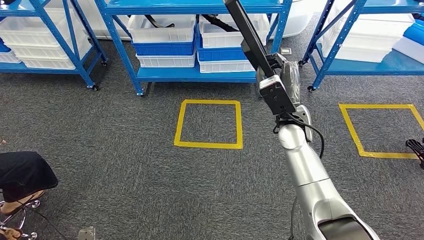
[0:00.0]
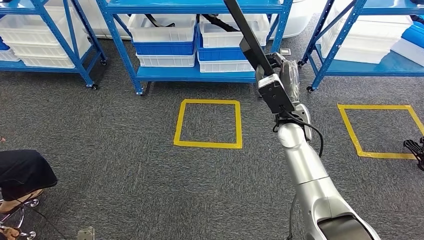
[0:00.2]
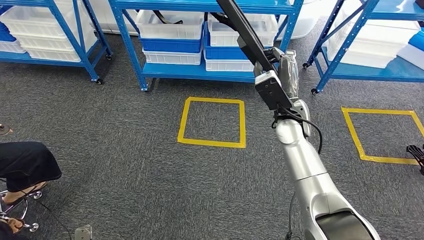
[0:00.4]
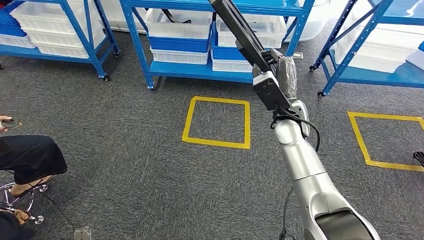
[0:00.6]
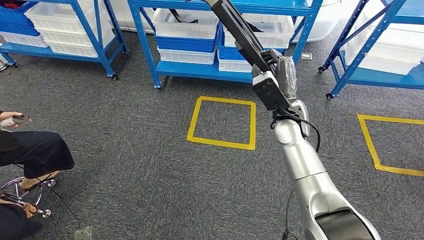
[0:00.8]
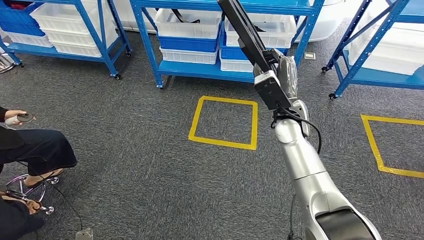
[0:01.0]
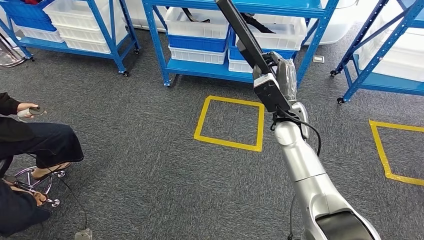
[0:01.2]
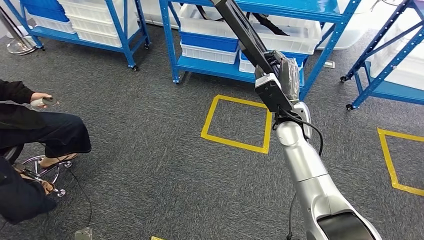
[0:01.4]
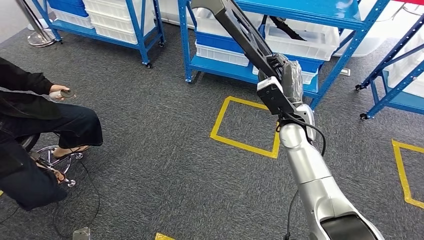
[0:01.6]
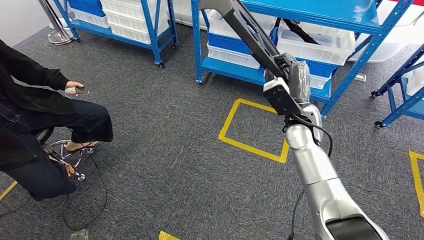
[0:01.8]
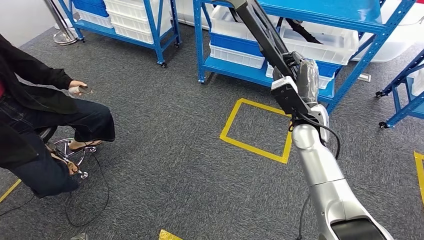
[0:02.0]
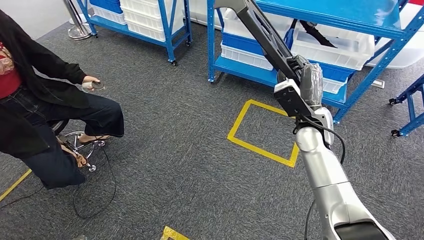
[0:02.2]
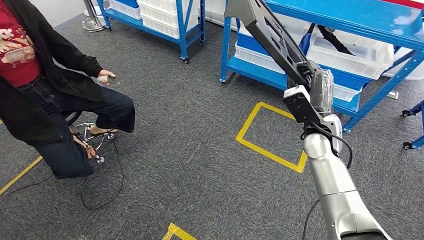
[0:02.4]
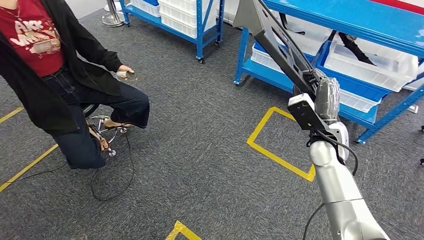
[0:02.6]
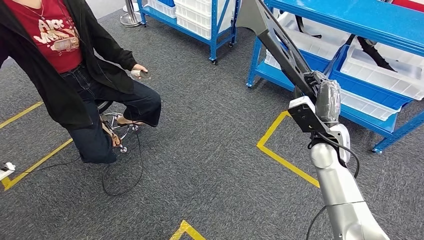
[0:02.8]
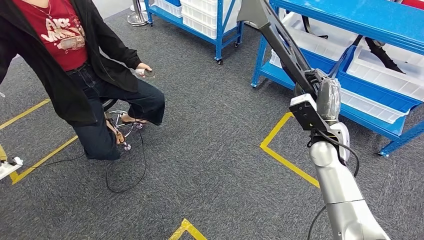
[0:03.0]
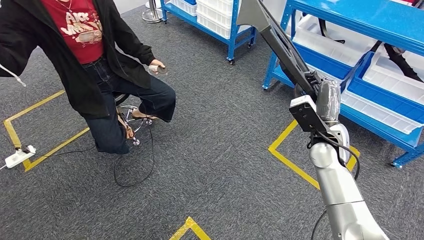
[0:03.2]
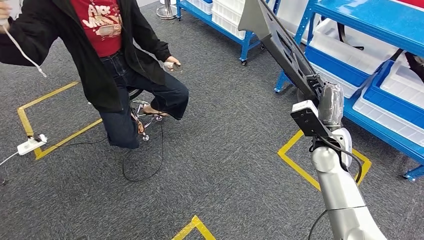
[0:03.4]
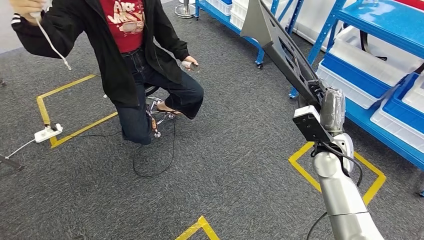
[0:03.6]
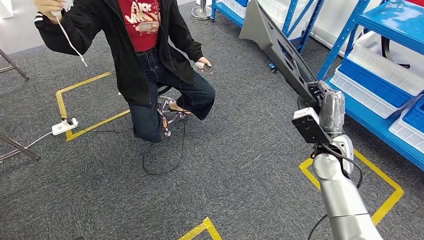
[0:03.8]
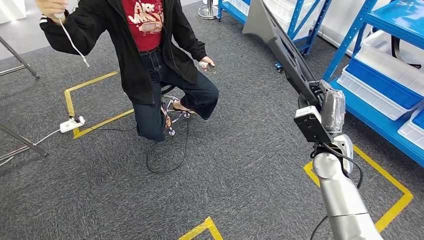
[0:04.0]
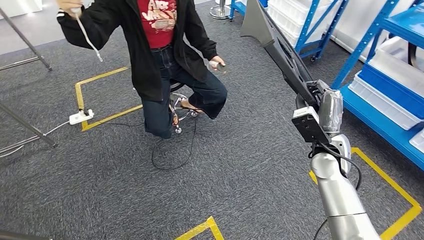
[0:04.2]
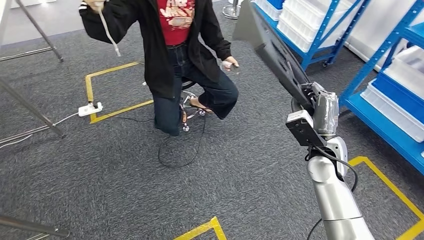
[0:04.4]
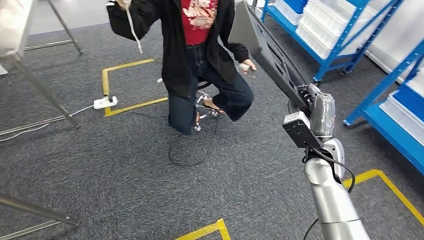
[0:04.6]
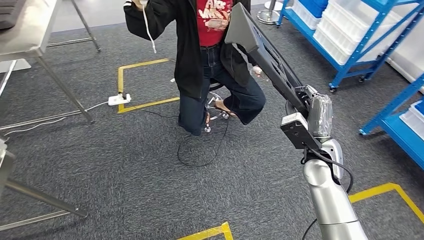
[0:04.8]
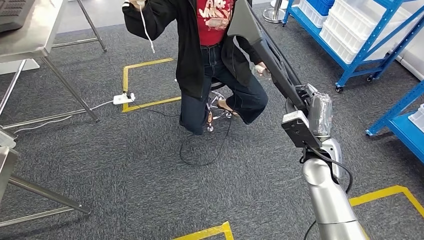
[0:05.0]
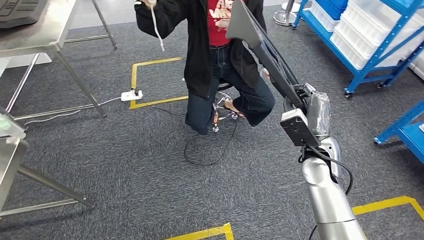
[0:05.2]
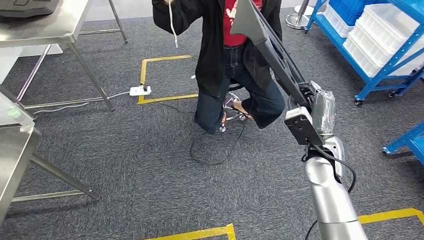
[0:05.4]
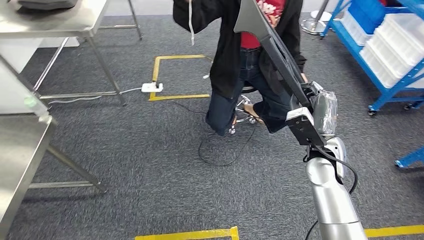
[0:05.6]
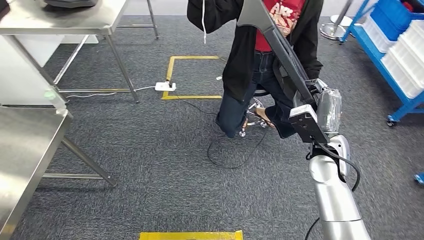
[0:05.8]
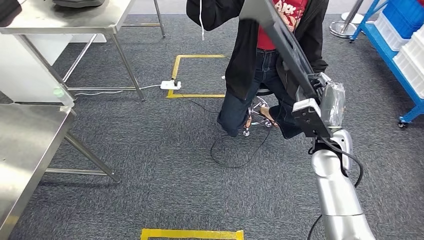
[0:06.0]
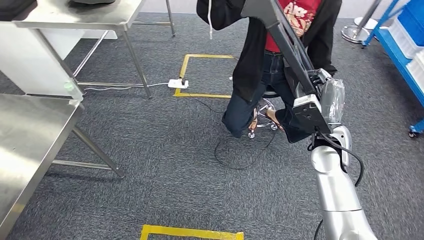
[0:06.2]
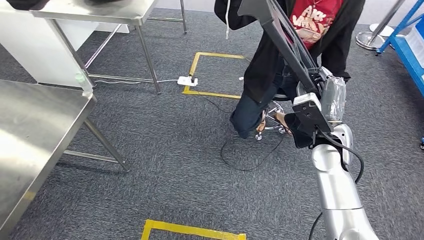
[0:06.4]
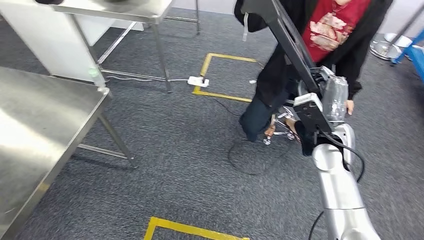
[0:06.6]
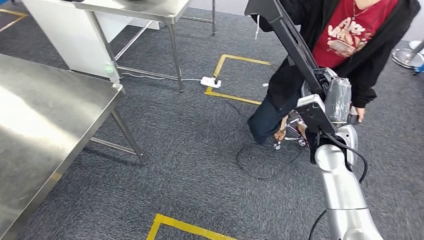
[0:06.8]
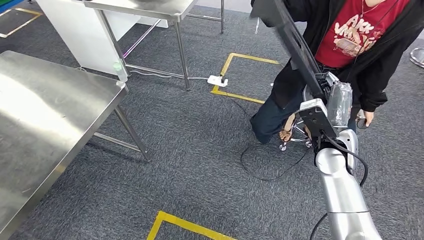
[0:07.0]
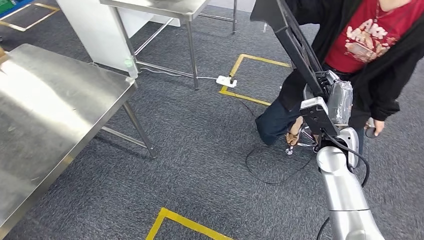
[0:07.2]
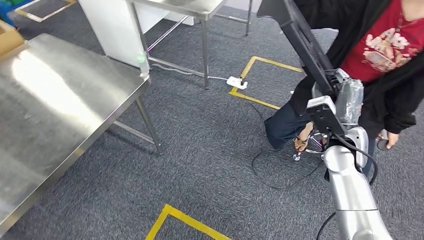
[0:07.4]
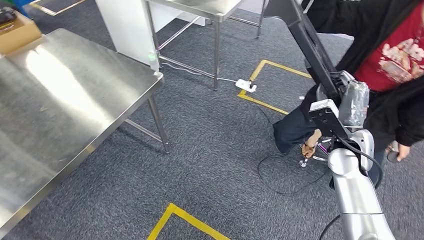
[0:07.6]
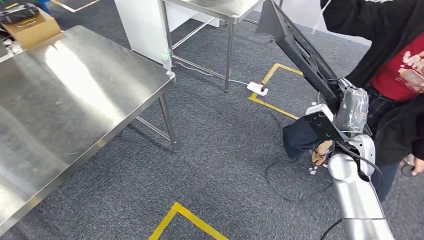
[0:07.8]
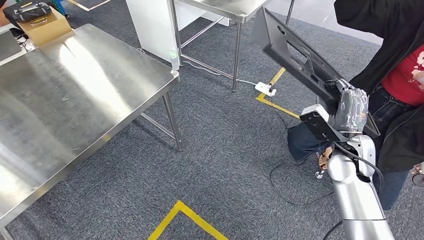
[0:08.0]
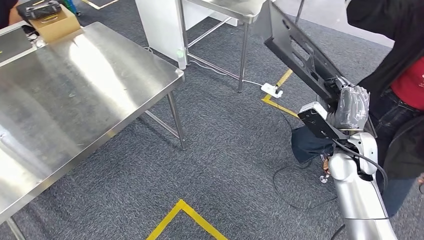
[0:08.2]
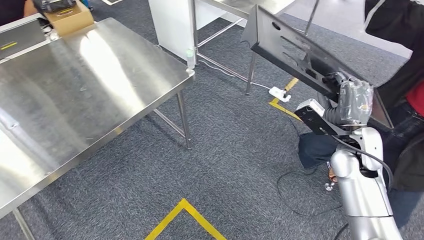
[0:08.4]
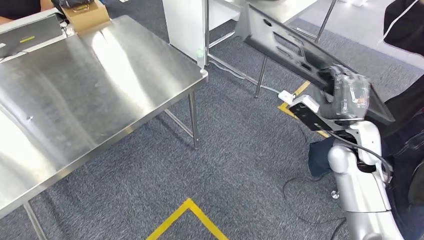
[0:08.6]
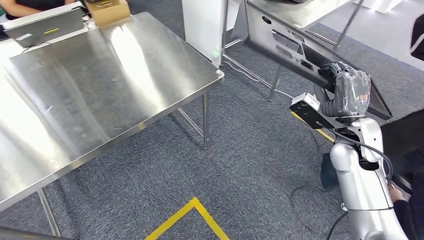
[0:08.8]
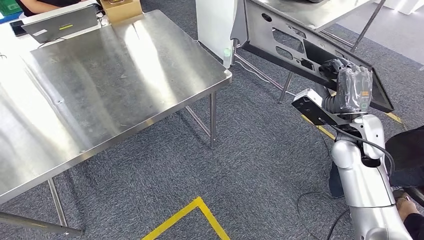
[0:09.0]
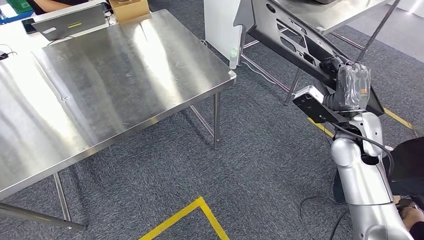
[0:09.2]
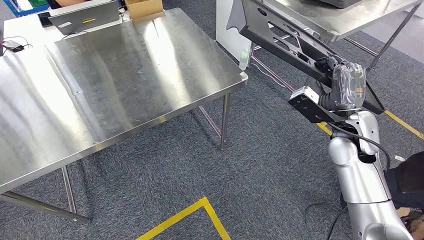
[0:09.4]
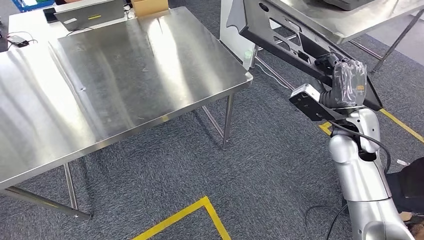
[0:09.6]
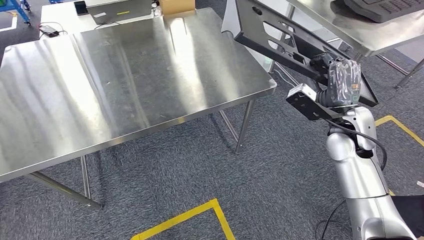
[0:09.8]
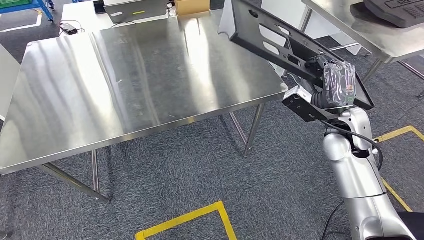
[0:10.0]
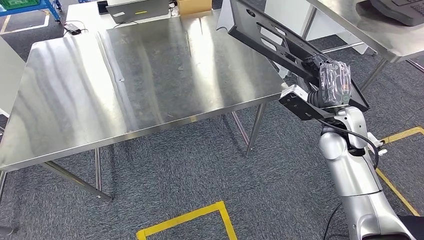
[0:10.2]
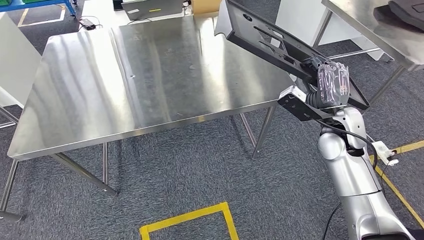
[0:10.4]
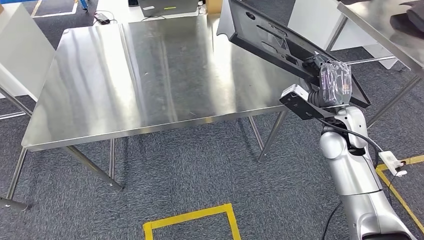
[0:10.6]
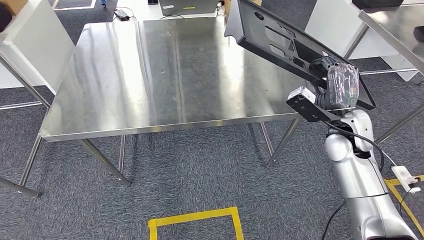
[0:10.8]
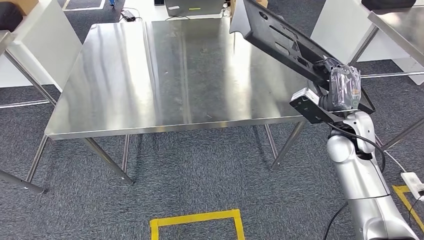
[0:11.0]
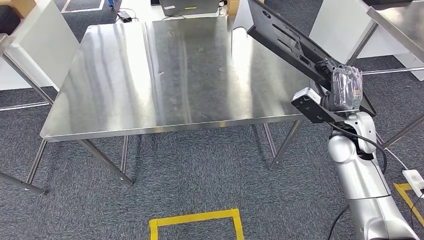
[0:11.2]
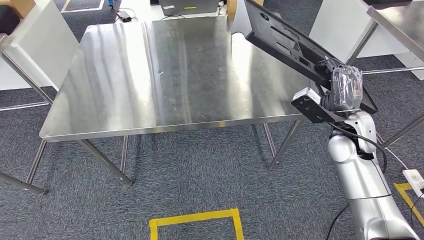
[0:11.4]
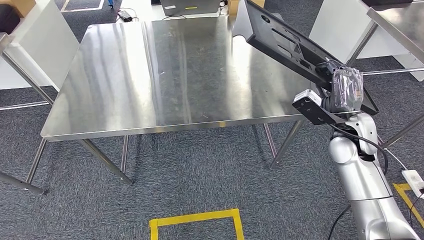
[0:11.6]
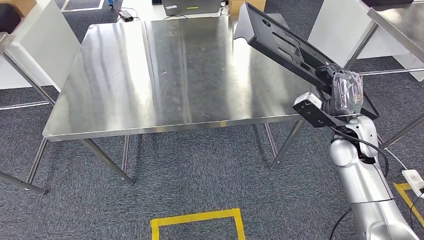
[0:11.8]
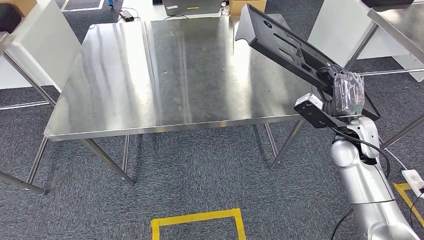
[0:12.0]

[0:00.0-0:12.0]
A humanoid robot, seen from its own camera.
Step, 0:00.0 to 0:10.8: Move the large material to the workbench.

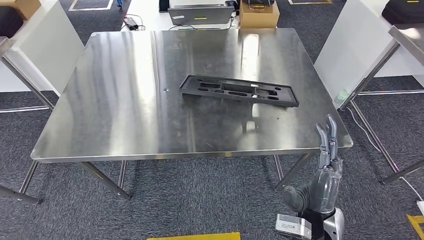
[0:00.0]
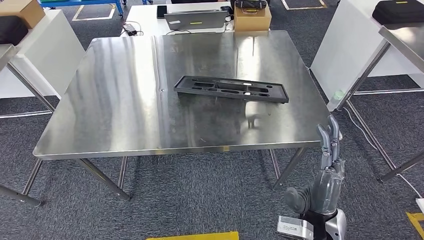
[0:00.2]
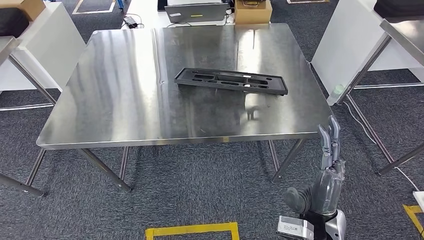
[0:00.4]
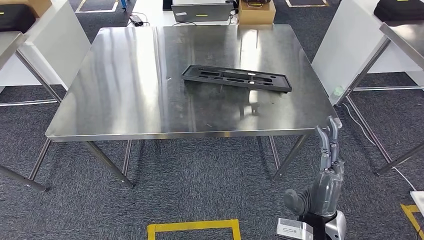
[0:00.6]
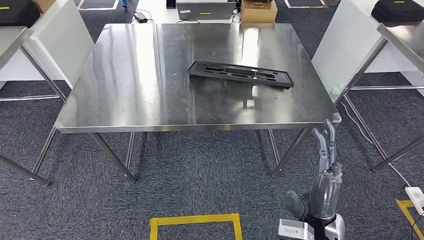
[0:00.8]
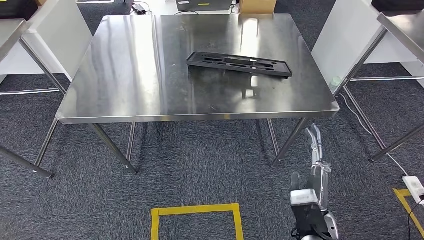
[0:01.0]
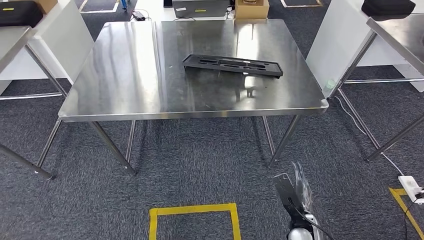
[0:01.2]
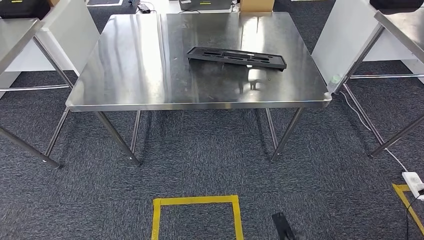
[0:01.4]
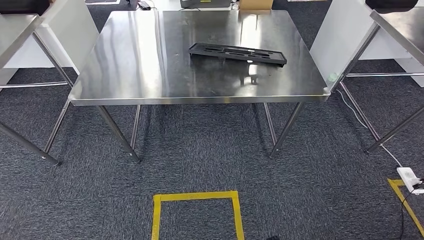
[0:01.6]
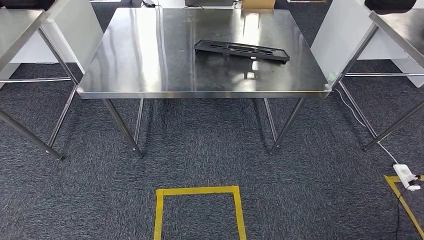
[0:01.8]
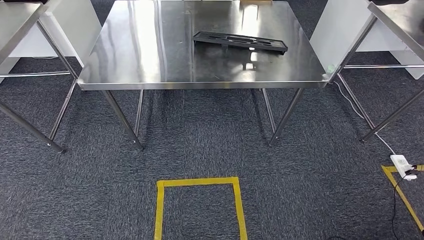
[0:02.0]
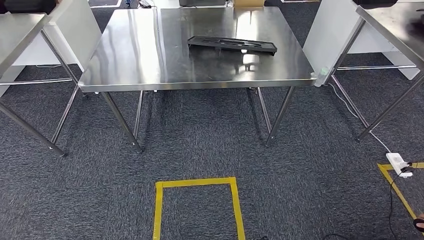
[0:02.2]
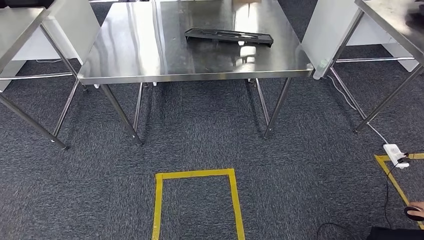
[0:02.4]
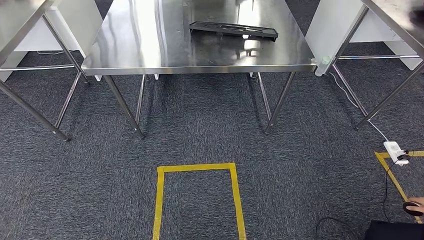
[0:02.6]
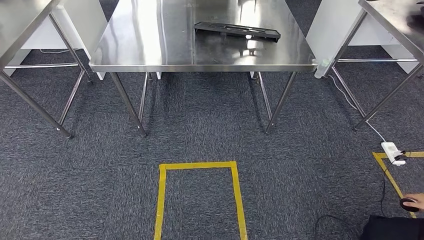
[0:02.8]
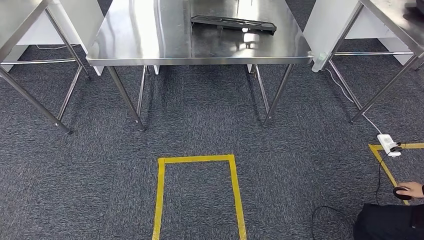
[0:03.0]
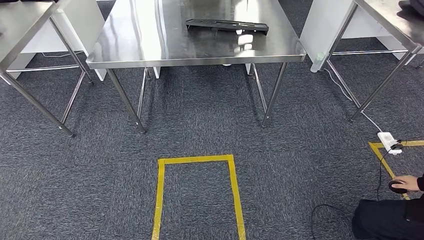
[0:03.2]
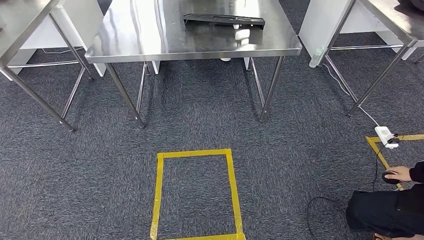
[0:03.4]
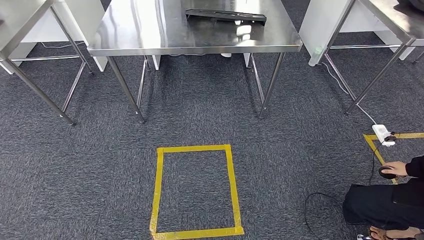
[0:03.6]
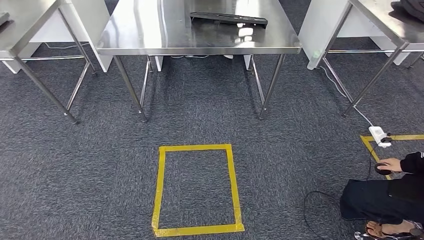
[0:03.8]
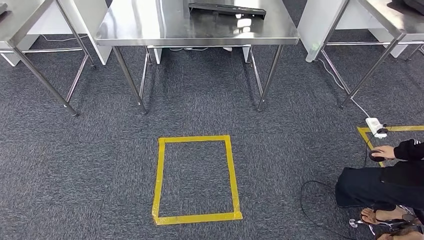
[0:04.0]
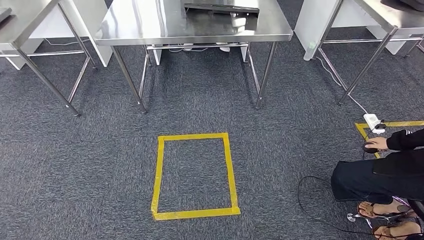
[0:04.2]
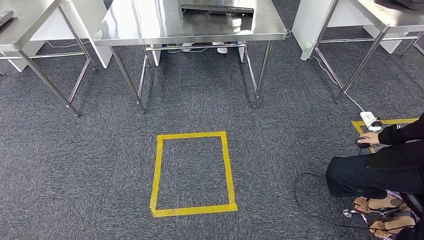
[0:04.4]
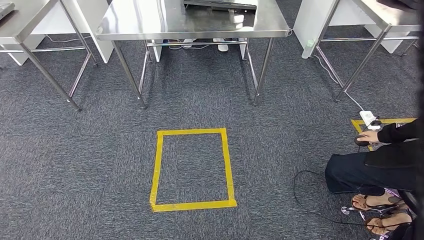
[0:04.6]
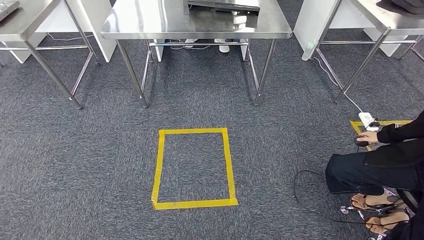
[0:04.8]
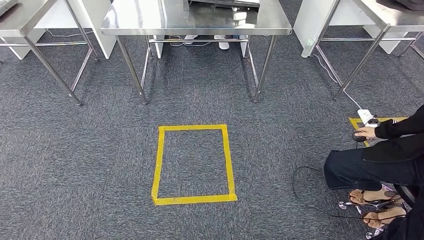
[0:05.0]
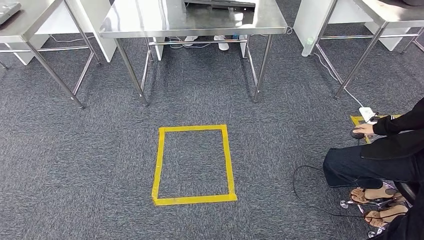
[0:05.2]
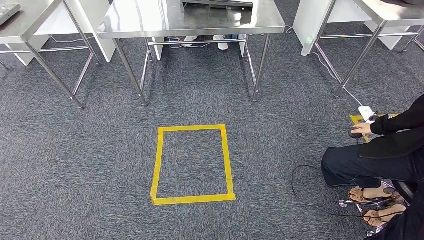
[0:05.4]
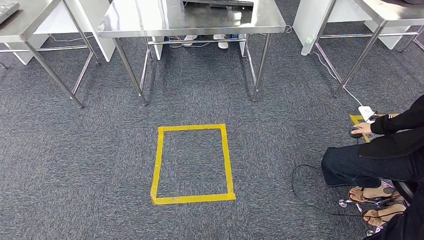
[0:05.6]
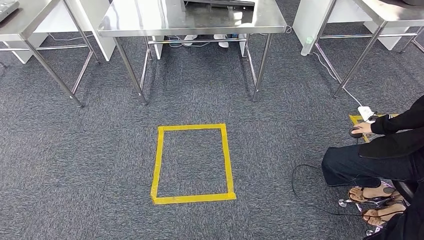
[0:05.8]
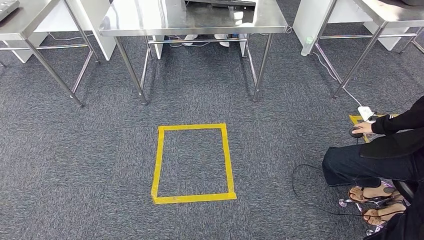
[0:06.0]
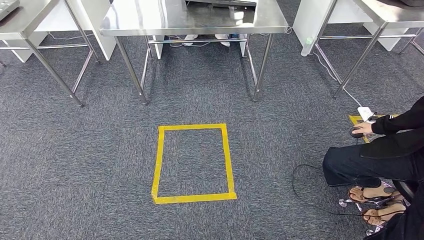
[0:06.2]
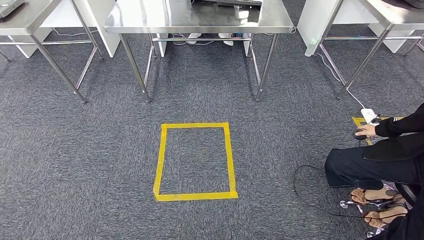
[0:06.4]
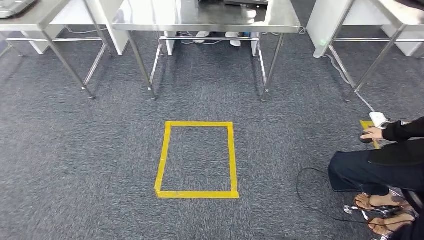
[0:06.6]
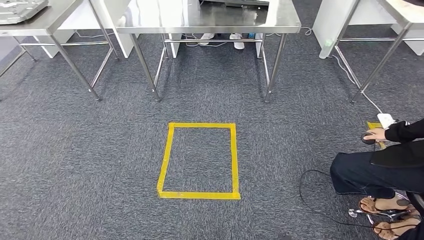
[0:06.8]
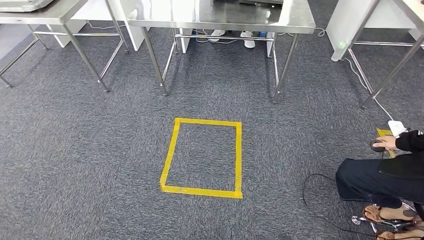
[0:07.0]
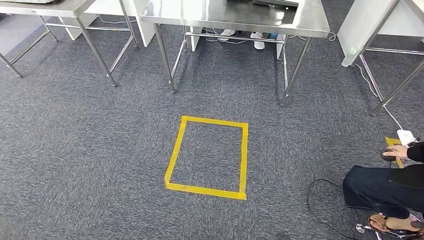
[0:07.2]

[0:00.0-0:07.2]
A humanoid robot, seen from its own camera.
Step, 0:00.0 to 0:03.0: Insert the large material into the corresponding slot on the workbench.
